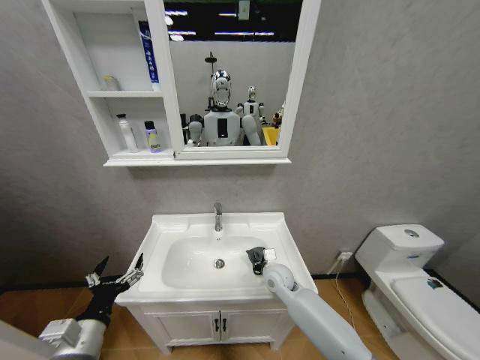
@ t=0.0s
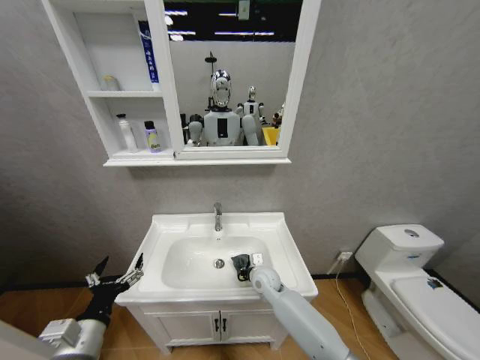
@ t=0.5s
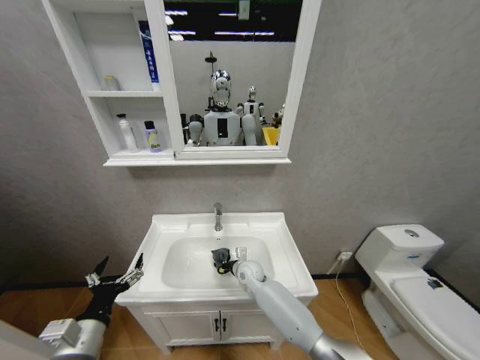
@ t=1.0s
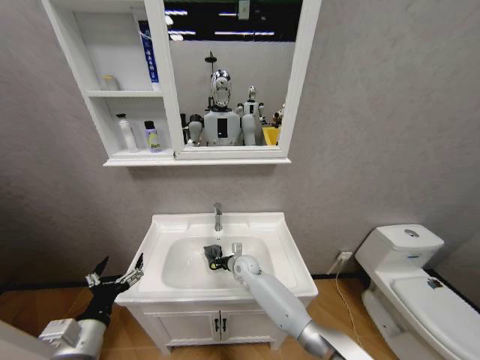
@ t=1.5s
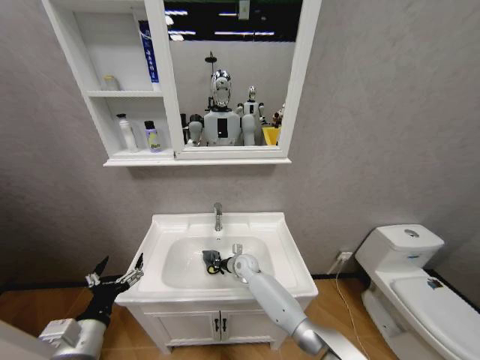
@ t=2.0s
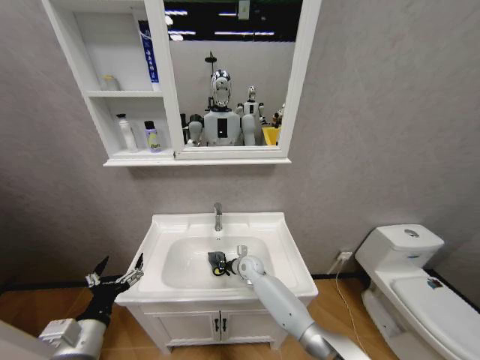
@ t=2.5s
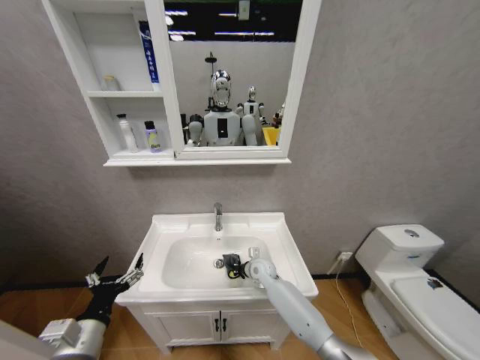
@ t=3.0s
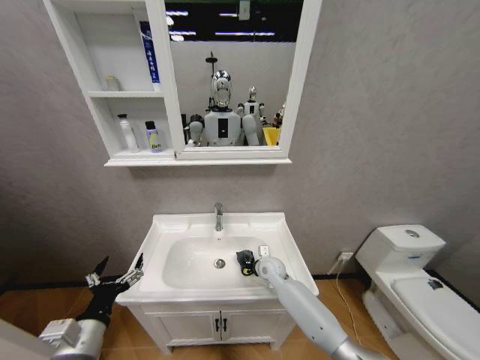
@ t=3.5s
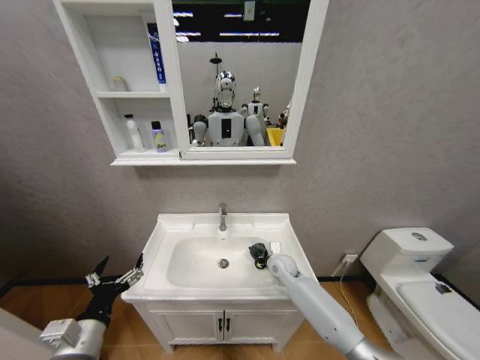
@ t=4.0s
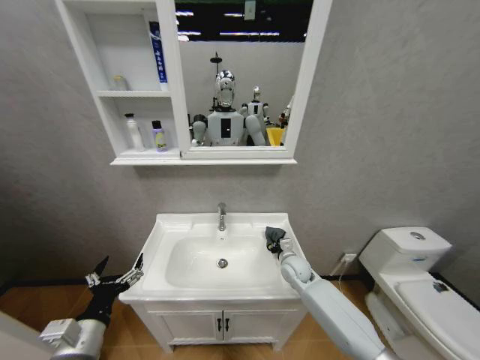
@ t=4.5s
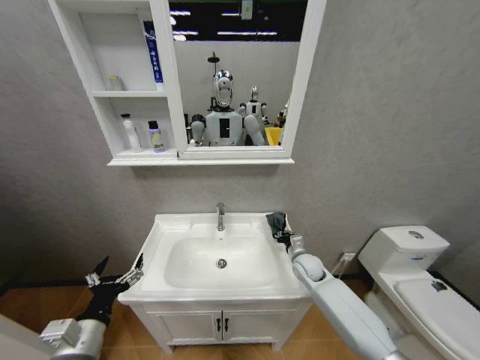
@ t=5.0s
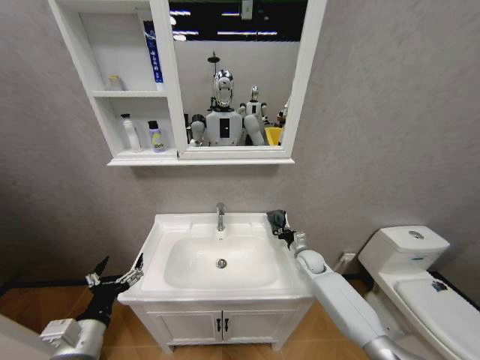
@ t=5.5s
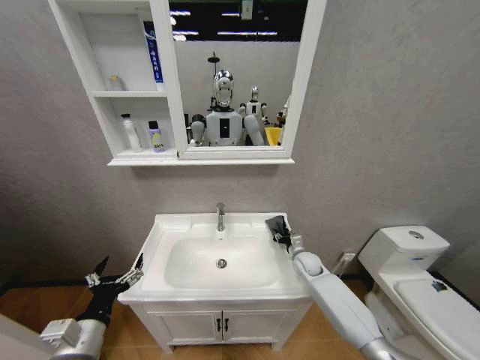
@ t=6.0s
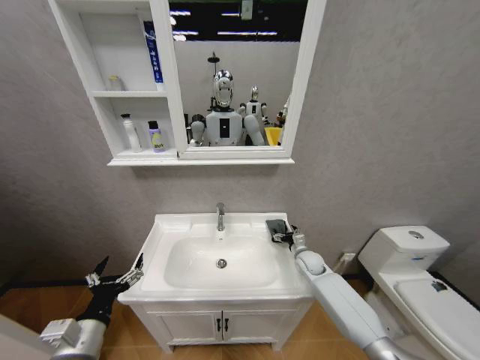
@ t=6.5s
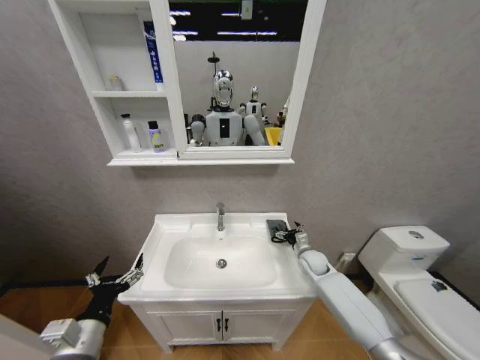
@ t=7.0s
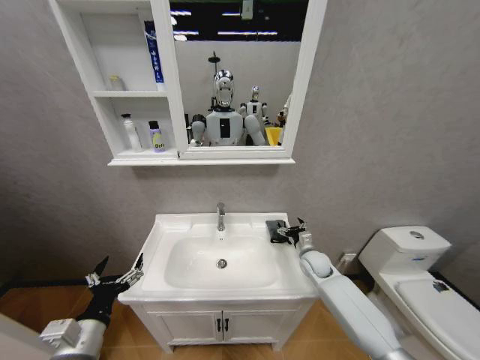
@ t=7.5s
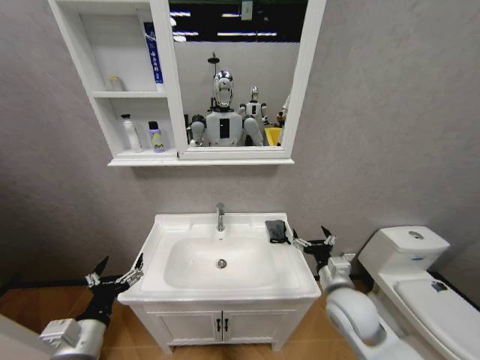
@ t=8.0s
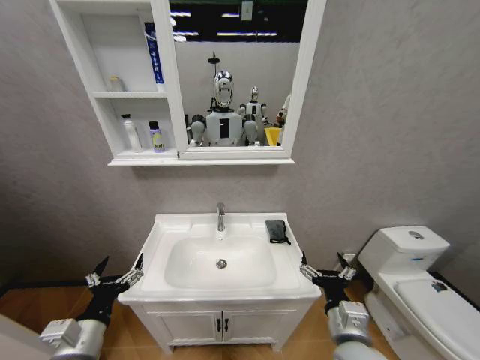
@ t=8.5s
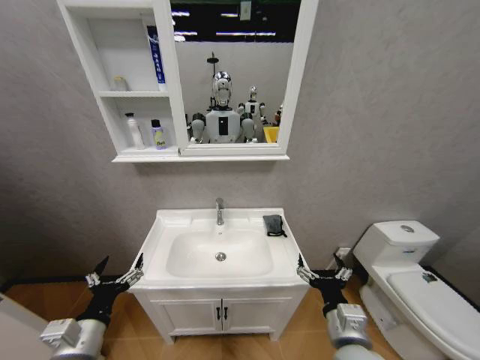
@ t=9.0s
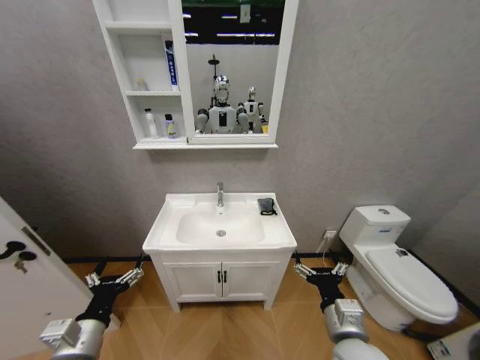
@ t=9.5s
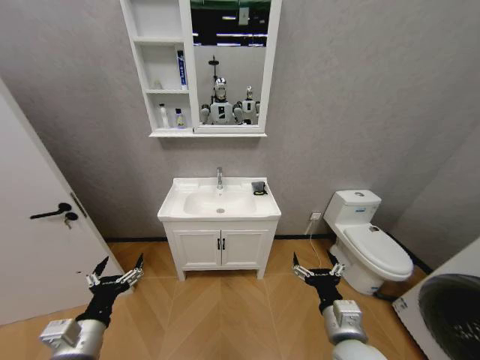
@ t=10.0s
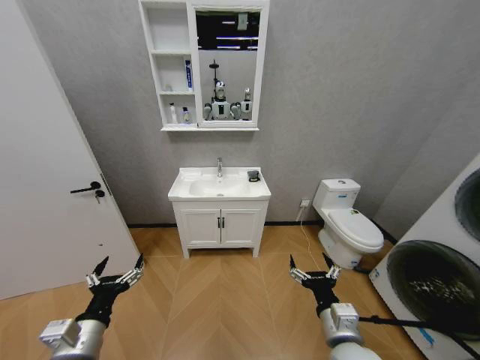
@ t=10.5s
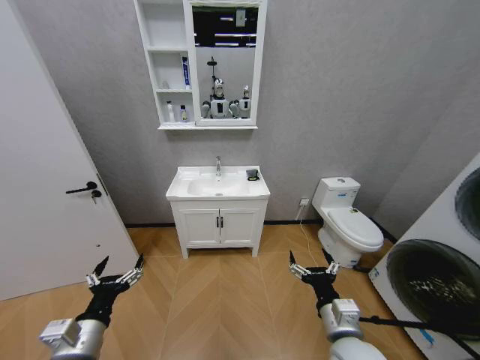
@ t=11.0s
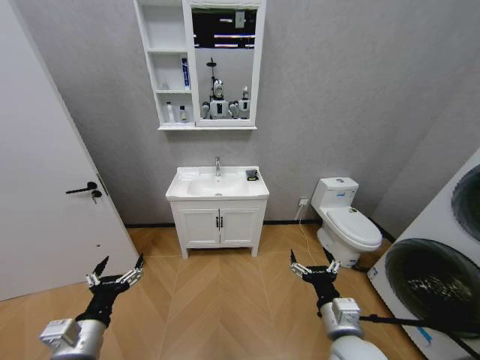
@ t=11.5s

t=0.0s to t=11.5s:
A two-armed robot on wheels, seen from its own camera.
Task of the whole recording: Move facial cleanser and shampoo from washbasin to cabinet, then wipe washbasin with towel.
t=0.0s to t=2.0s: The right gripper shifts about 15 cm to the left, forward and downward.
t=2.0s to t=4.0s: The right gripper is displaced to the right by approximately 15 cm.
t=4.0s to t=6.0s: The right gripper heads to the right, covering about 10 cm.
t=6.0s to t=7.5s: The right gripper opens.
t=7.5s to t=9.5s: The right gripper travels backward and upward by approximately 30 cm.

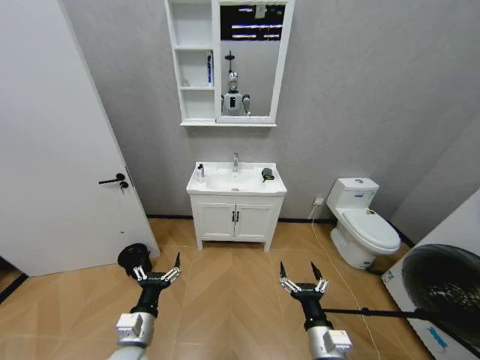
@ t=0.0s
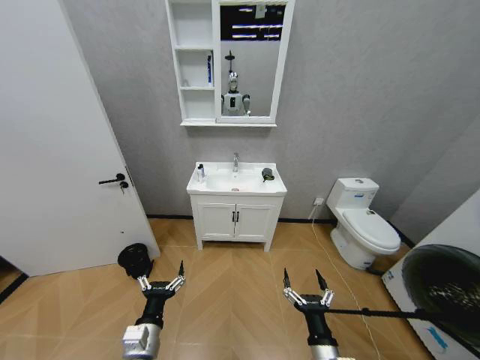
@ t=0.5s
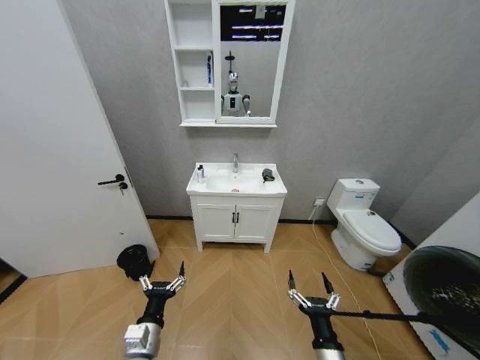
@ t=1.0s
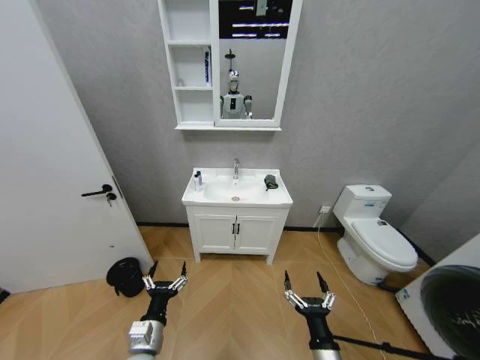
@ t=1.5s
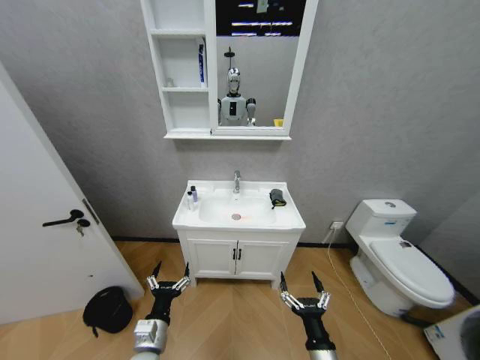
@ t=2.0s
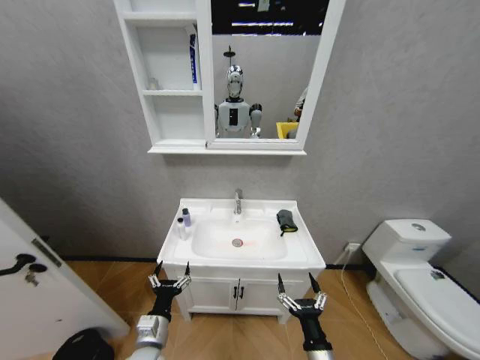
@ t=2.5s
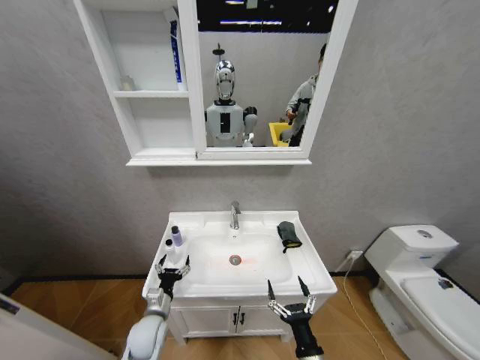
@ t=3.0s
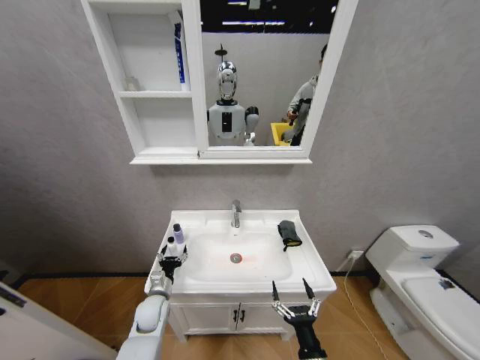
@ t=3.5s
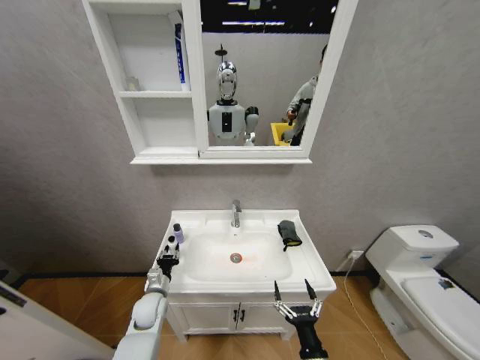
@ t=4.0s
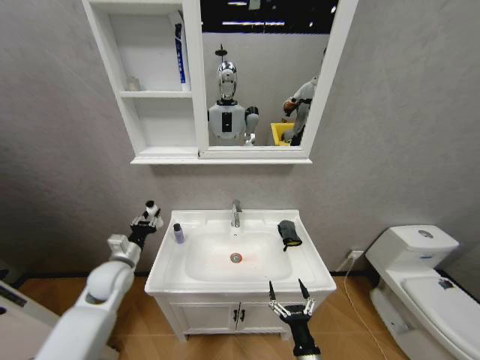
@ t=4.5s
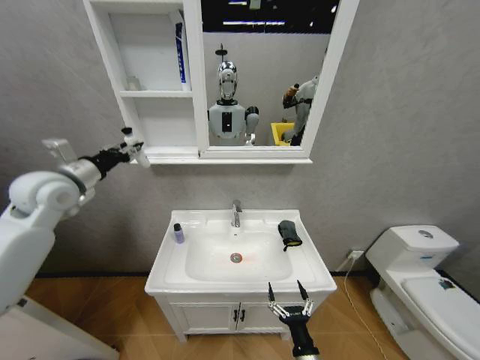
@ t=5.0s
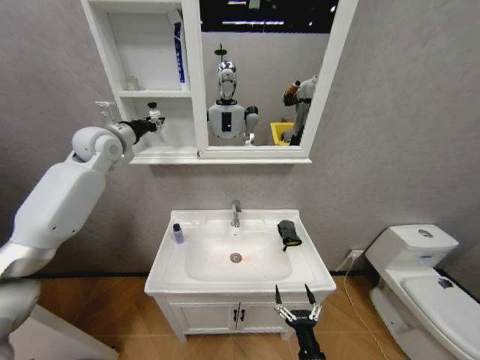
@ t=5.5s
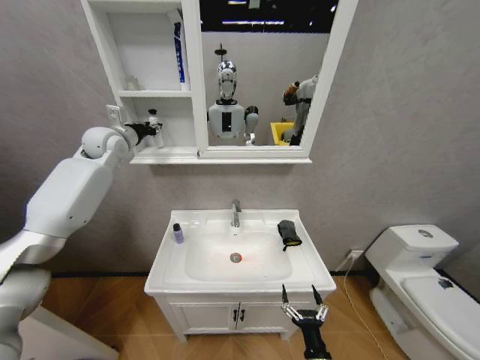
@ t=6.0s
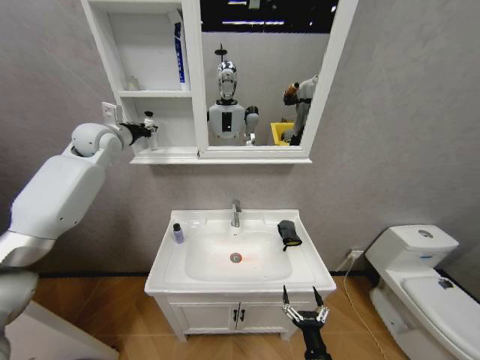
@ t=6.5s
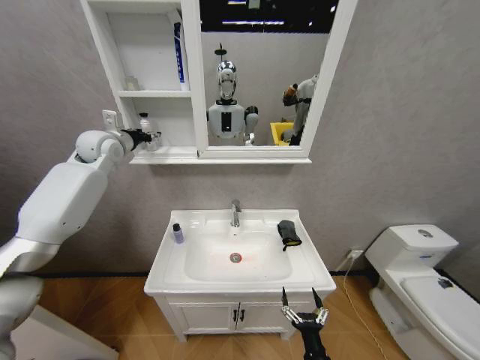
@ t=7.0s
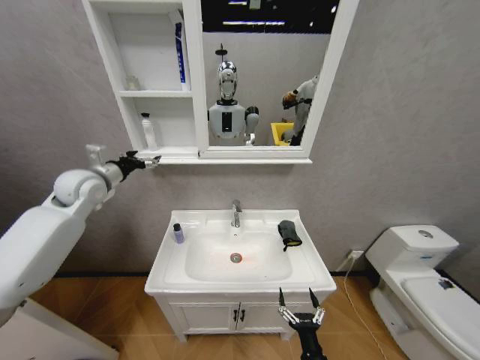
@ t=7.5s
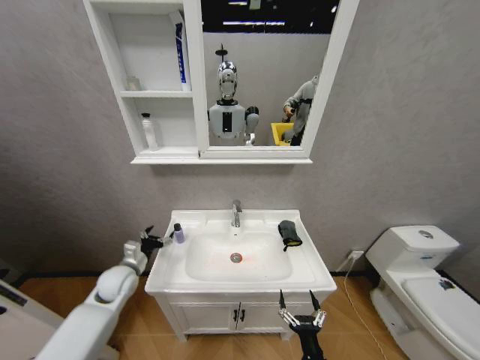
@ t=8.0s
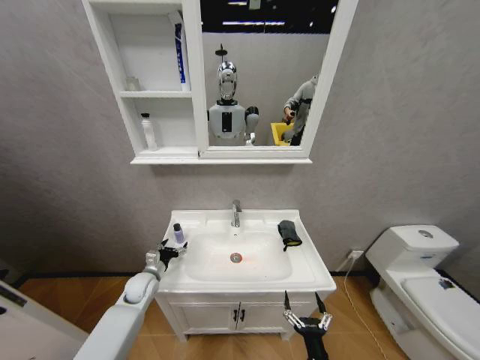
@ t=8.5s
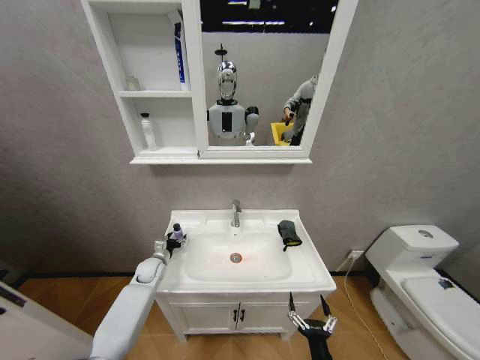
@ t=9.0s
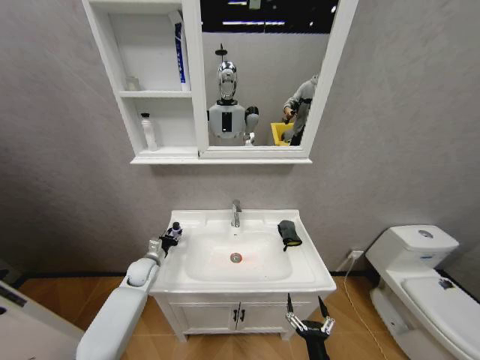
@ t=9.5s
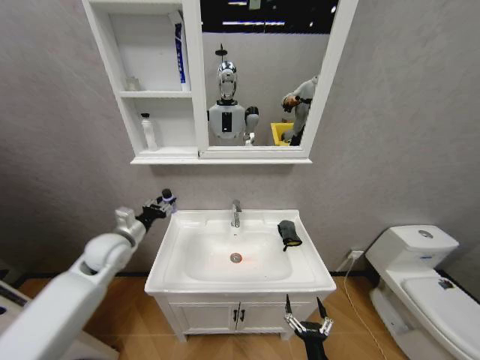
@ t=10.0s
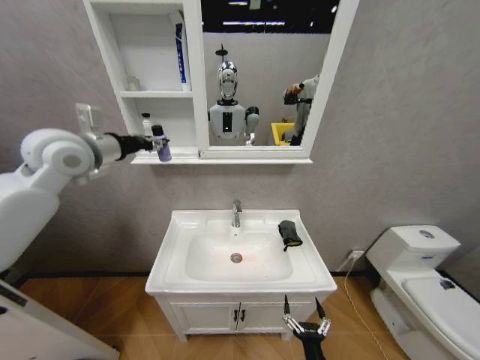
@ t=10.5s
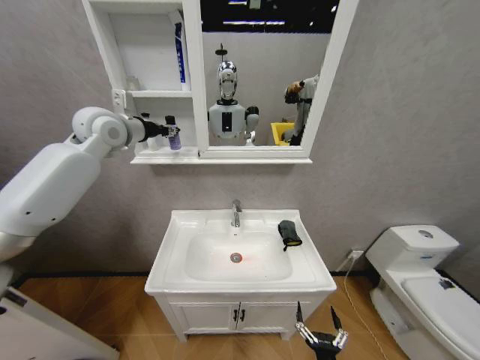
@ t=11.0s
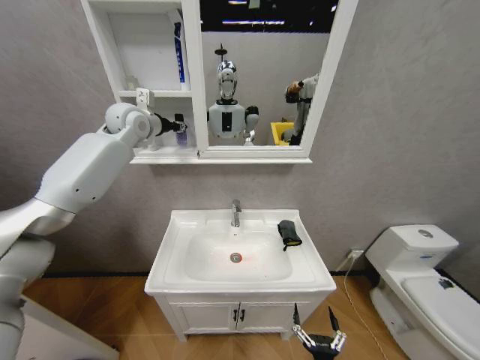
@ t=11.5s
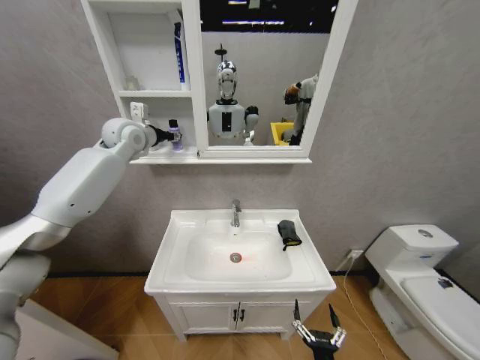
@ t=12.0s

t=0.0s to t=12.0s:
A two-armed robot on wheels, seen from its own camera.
Task of the whole recording: Move facial cleanser and shampoo from washbasin to cabinet, then wipe washbasin with towel.
t=2.0s to t=4.0s: The left gripper goes some 15 cm forward, and closes its fingers.
t=4.0s to t=6.0s: The left gripper is displaced upward and forward by some 50 cm.
t=6.0s to t=8.0s: The left gripper heads downward and backward, covering roughly 40 cm, and opens up.
t=8.0s to t=10.0s: The left gripper is displaced upward by roughly 15 cm, and closes.
t=10.0s to t=12.0s: The left gripper goes approximately 30 cm upward and forward.

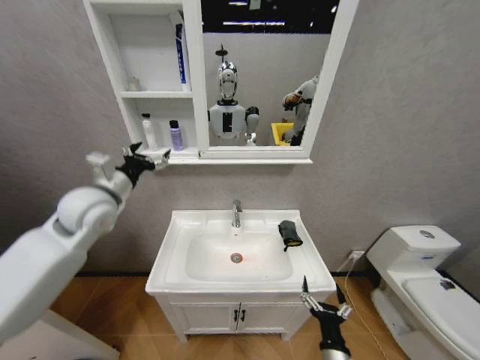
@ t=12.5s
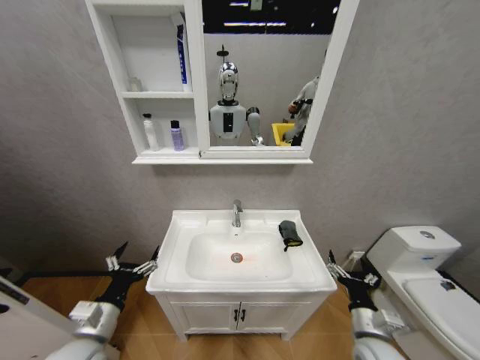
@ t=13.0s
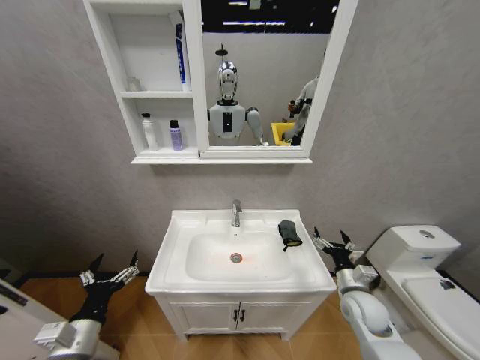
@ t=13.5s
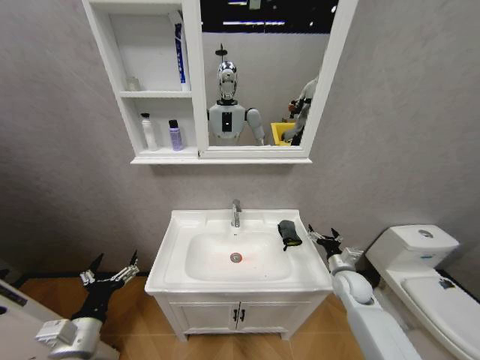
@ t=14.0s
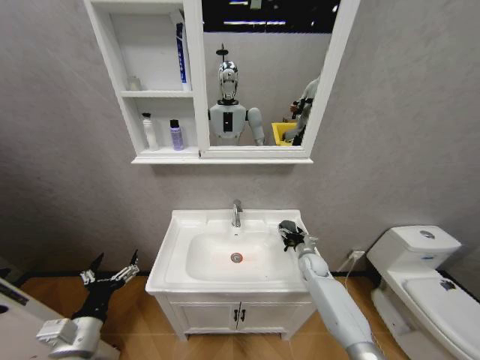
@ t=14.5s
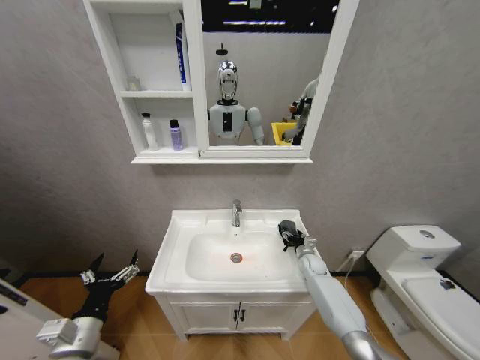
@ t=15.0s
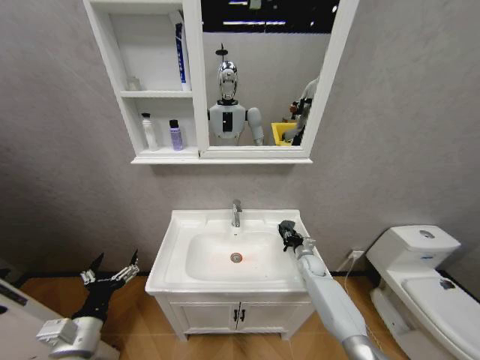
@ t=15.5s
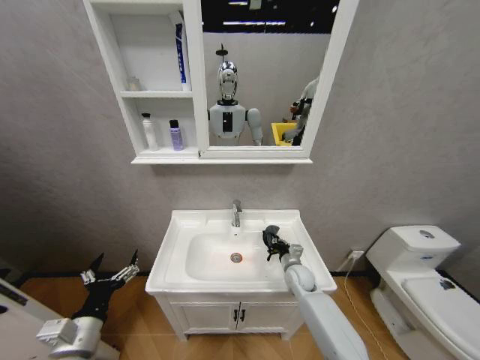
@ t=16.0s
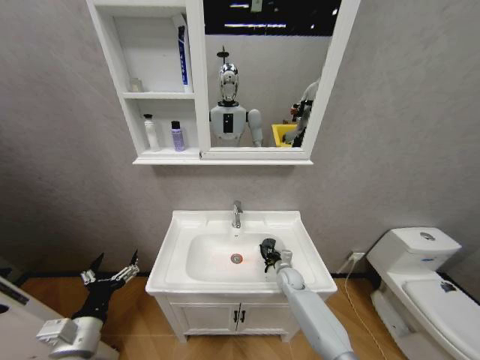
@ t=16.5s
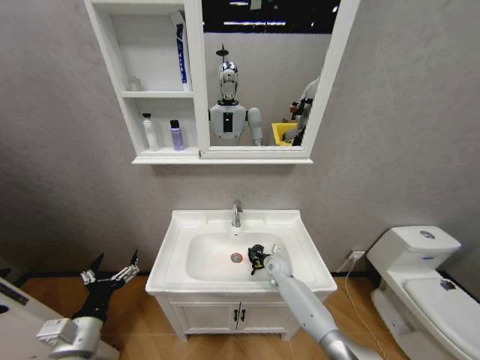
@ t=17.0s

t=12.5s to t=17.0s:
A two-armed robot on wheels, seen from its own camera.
Task of the whole recording: Move facial cleanser and shampoo from washbasin to cabinet, then wipe washbasin with towel.
t=12.5s to t=14.5s: The left gripper shifts about 30 cm downward and backward, while the right gripper moves forward, approximately 35 cm.
t=14.5s to t=17.0s: The right gripper moves to the left, approximately 10 cm, and closes up.
